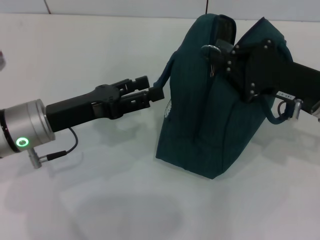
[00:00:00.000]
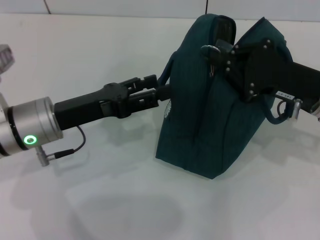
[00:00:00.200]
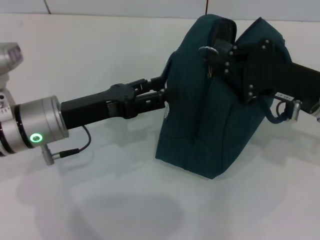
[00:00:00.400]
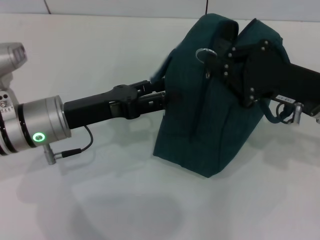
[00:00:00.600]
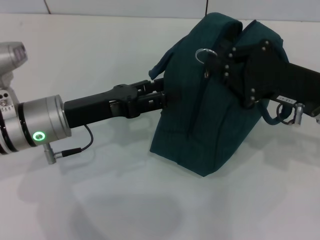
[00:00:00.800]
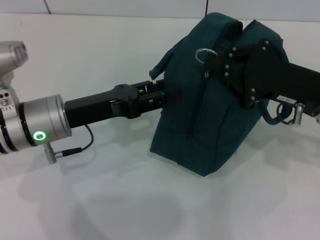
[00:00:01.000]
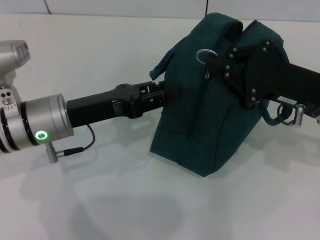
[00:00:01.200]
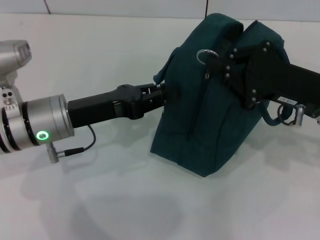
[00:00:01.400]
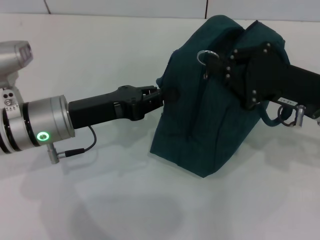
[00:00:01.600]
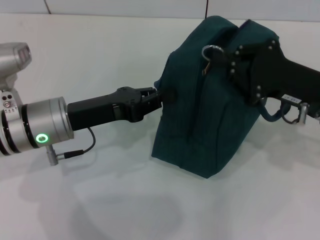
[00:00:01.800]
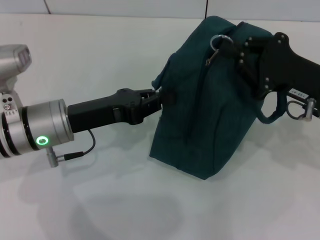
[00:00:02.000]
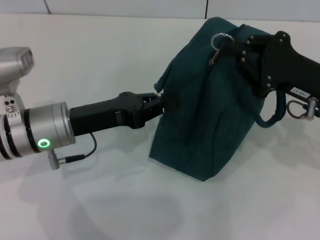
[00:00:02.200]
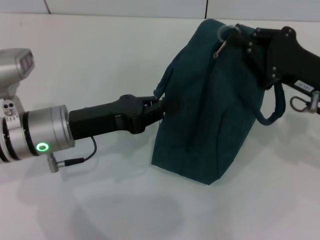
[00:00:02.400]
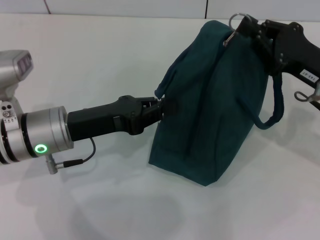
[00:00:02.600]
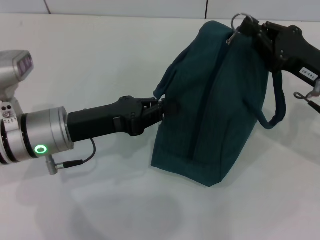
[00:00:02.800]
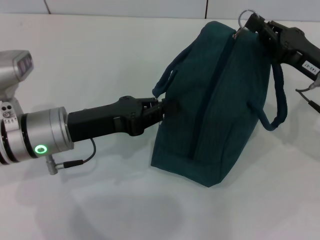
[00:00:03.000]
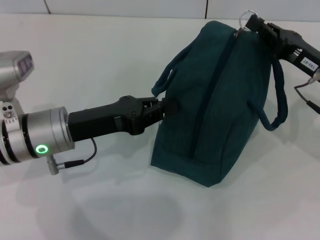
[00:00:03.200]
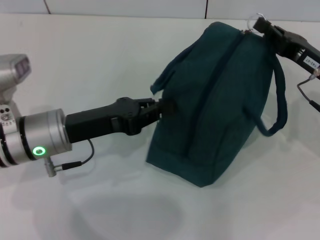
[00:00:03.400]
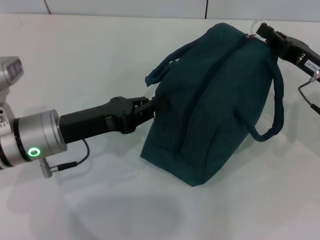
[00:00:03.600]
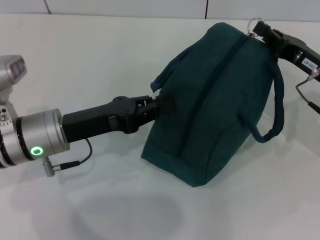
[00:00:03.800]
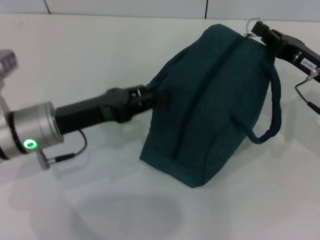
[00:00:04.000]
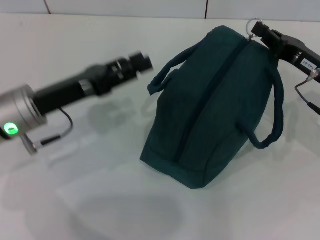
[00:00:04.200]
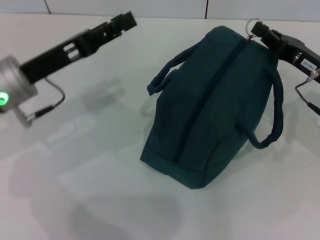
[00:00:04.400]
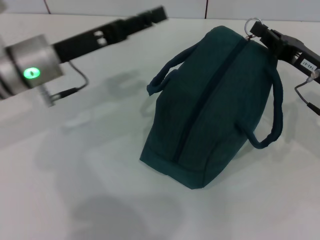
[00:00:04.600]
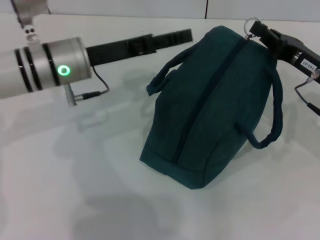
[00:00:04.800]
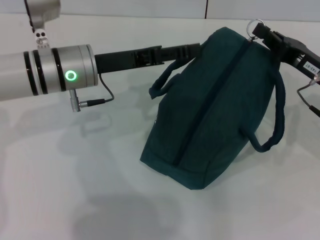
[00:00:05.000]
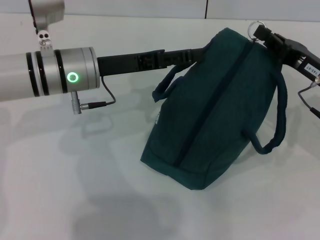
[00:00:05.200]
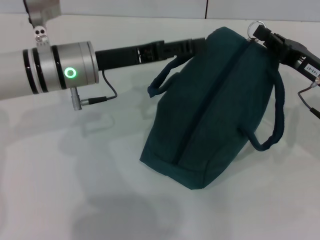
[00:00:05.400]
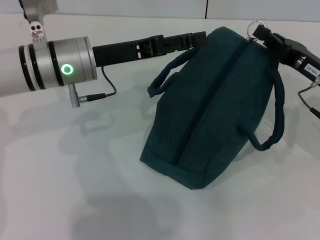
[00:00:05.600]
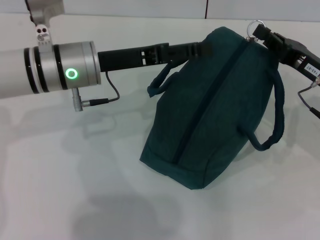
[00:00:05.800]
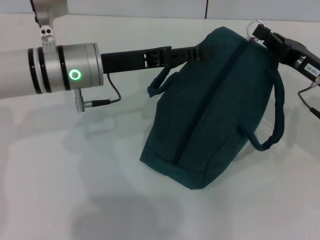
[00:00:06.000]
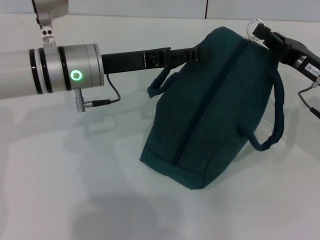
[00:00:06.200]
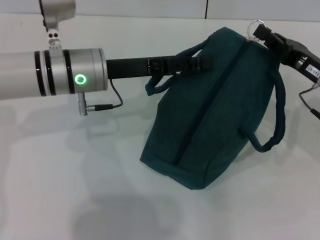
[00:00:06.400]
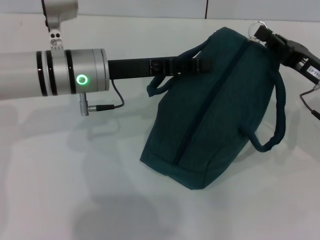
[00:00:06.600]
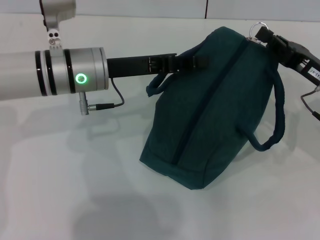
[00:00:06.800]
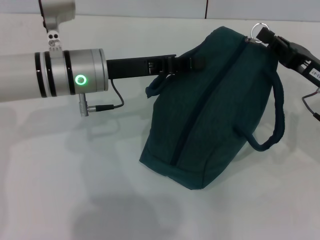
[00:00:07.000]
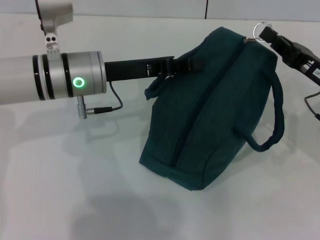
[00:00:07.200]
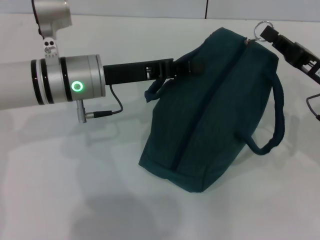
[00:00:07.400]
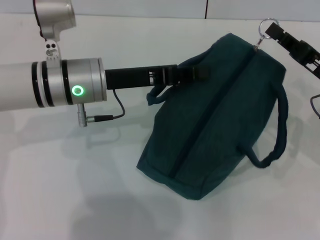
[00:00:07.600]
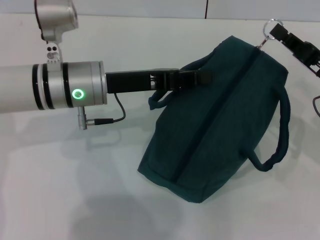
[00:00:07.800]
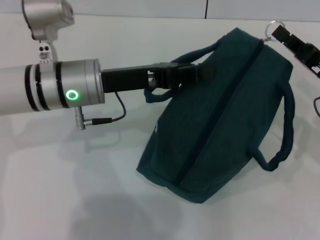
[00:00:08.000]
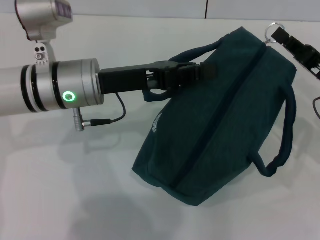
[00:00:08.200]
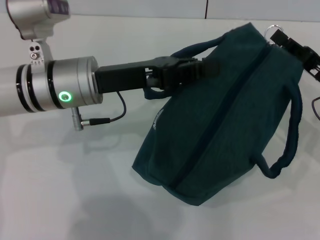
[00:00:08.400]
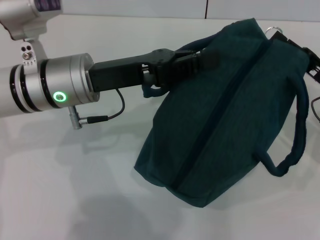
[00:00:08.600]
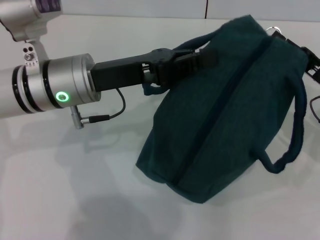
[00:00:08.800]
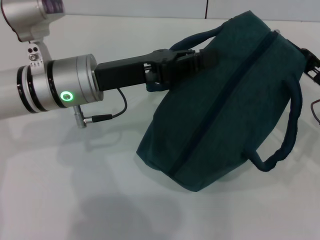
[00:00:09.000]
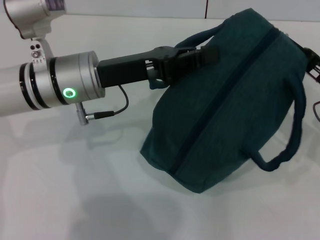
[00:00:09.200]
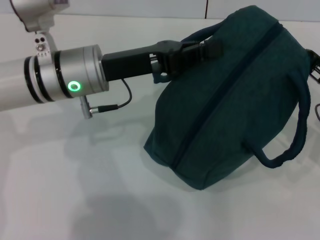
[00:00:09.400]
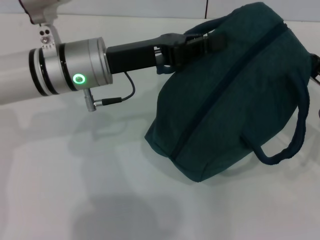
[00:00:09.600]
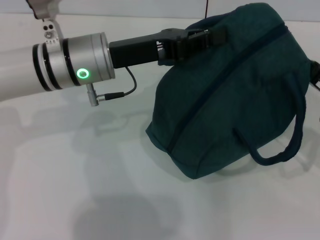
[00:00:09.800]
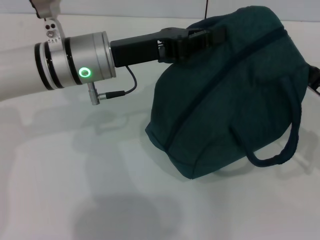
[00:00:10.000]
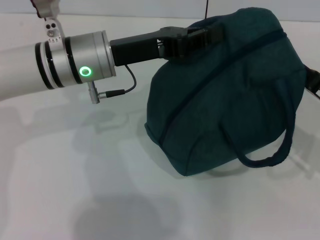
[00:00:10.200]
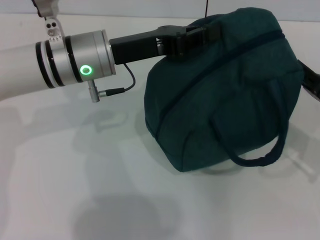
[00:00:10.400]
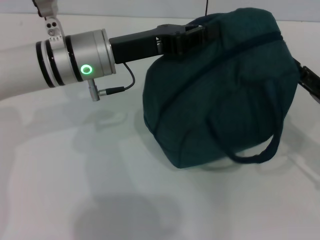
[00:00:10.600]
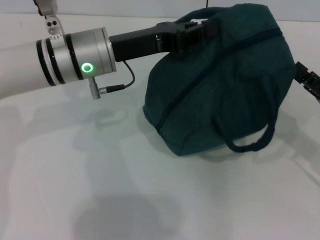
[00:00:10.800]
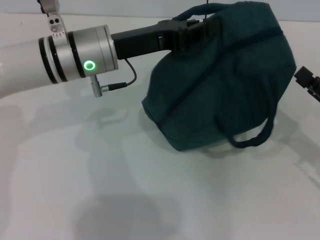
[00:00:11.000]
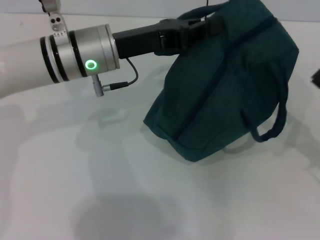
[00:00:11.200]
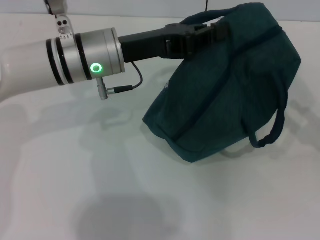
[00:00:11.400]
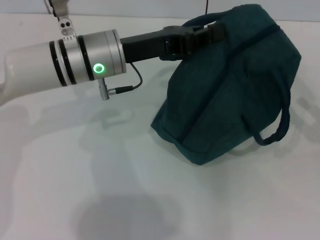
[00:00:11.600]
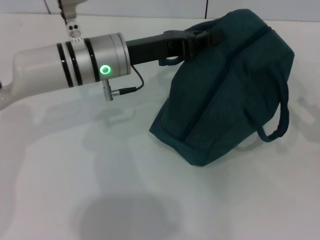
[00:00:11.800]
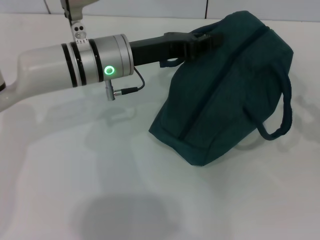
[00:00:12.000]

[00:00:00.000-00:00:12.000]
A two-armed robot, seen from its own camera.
Step, 00:00:00.000 to 00:00:10.600: Zip up the lunch bag with your right hand.
00:00:00.000 to 00:00:01.600: The left gripper closes up.
00:00:03.000 to 00:00:04.400: The left gripper ends up roughly 5 cm from where it was, and opens up.
00:00:04.400 to 00:00:06.000: The left gripper moves to the right, approximately 10 cm, and opens up.
00:00:06.000 to 00:00:07.600: The left gripper closes its fingers.
00:00:07.600 to 00:00:09.000: There are only small adjustments of the grippers.
00:00:09.000 to 00:00:10.400: The right gripper opens up.
00:00:10.400 to 00:00:12.000: The right gripper goes roughly 5 cm to the right.

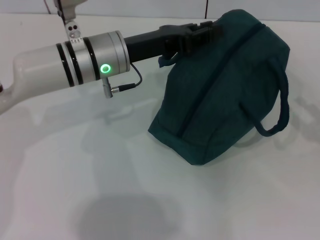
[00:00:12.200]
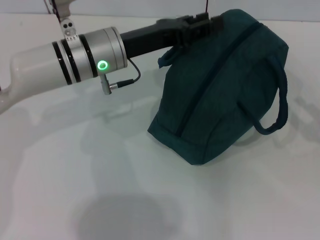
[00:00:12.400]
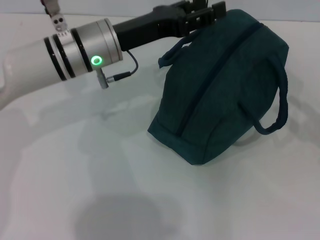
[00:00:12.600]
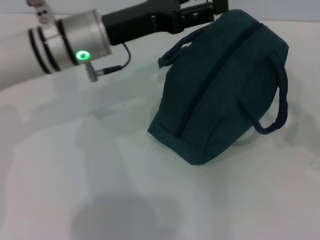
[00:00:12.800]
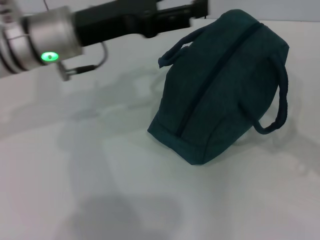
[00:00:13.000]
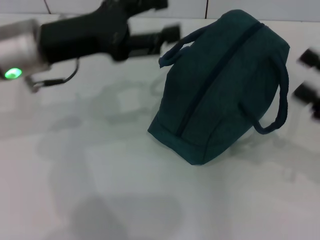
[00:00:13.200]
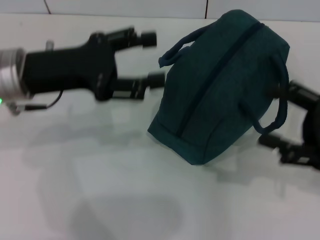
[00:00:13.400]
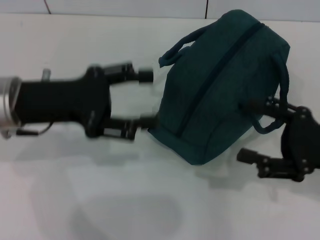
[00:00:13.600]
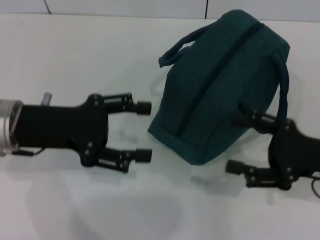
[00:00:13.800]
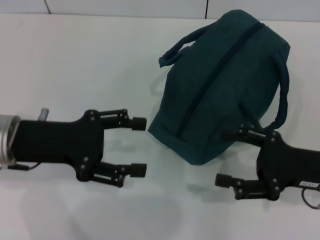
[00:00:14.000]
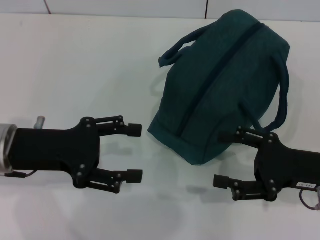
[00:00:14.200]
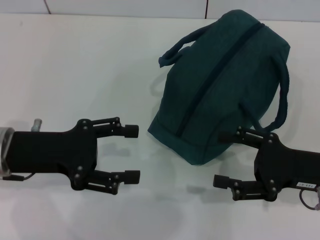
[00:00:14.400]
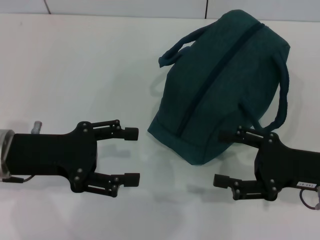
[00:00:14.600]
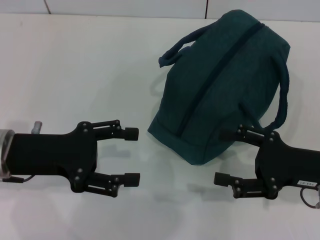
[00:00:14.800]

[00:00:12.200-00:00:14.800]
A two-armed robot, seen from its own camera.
00:00:12.200 to 00:00:13.400: The right gripper travels to the left by approximately 5 cm. The left gripper travels to the left and backward by some 10 cm, and opens.
00:00:13.400 to 00:00:14.800: The left gripper travels backward and downward by some 10 cm.
